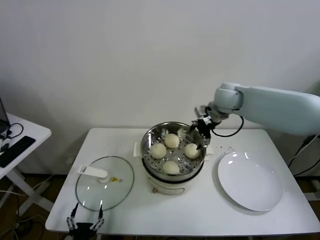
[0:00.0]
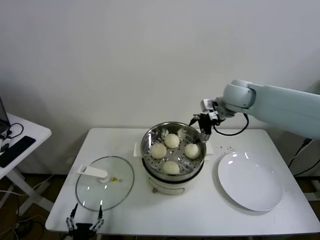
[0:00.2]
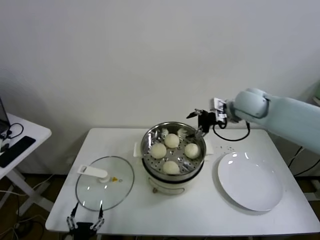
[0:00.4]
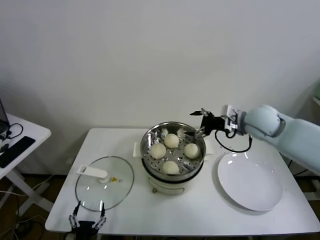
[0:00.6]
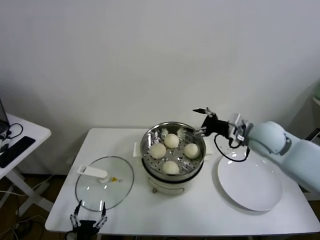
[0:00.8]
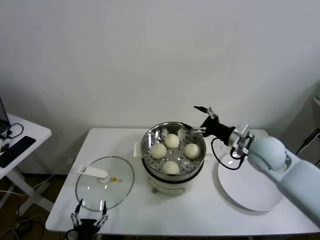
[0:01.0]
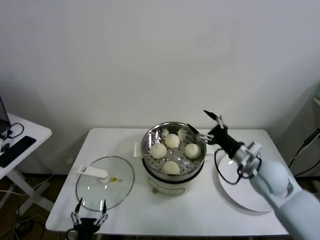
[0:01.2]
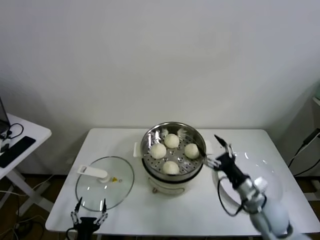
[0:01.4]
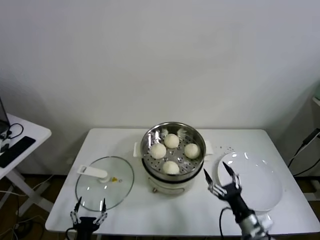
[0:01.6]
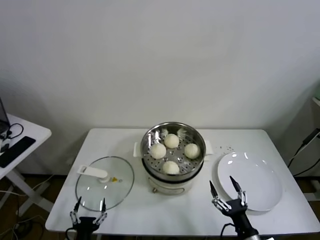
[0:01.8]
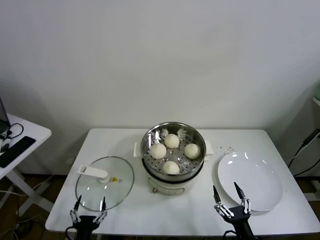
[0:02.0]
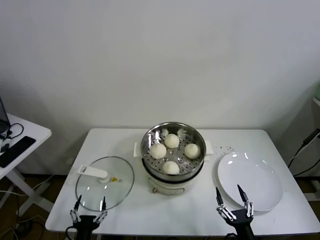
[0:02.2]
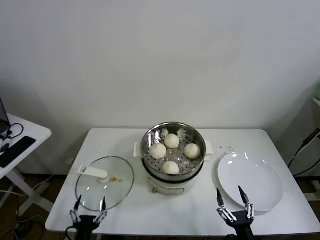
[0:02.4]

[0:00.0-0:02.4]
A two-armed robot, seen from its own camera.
Task of the whole recording: take steamed baozi put them in steamer.
0:00.0 to 0:01.2: The right gripper is displaced backward, downward and to the right by about 25 cm.
0:01.2 to 0:02.4: The right gripper shifts about 35 cm backward and downward.
